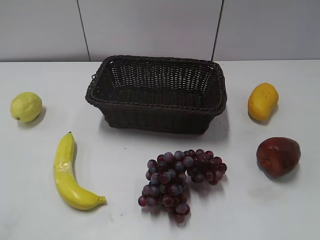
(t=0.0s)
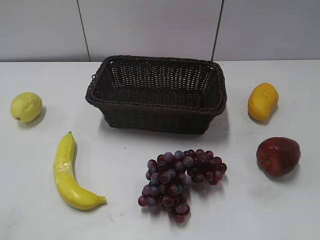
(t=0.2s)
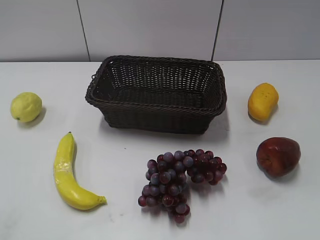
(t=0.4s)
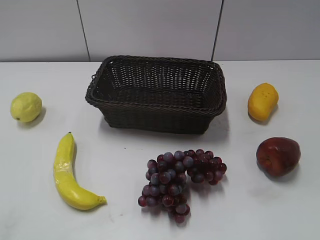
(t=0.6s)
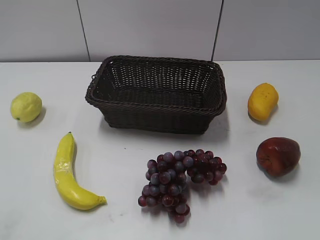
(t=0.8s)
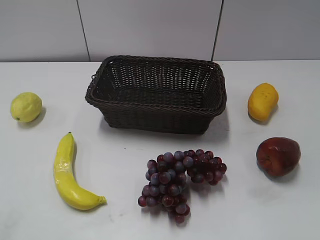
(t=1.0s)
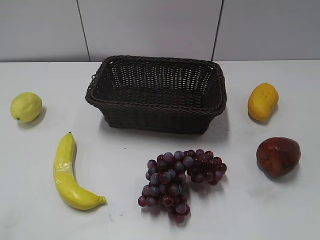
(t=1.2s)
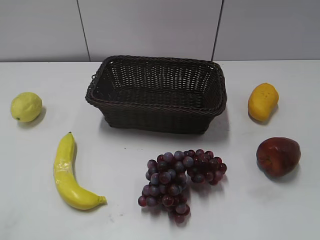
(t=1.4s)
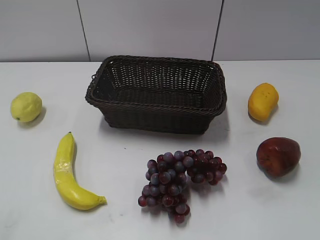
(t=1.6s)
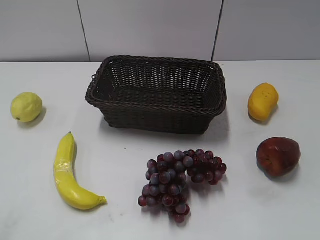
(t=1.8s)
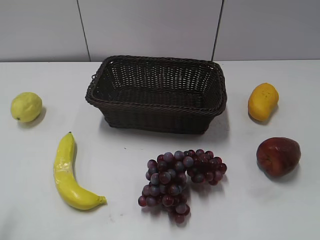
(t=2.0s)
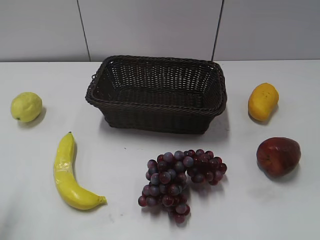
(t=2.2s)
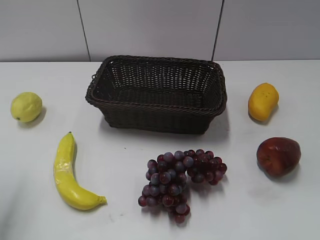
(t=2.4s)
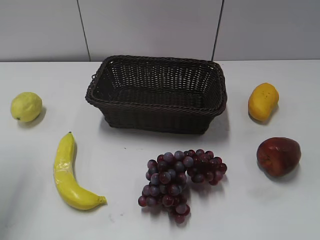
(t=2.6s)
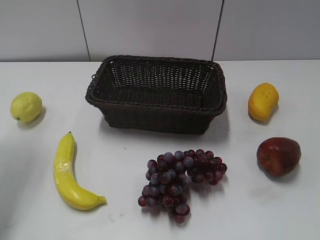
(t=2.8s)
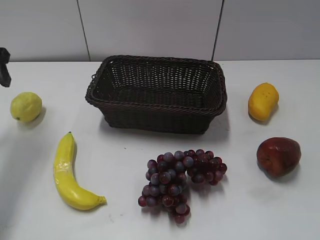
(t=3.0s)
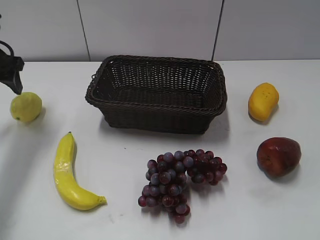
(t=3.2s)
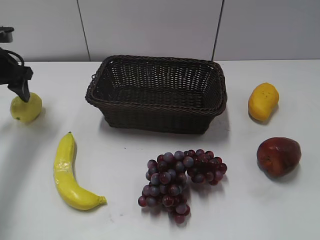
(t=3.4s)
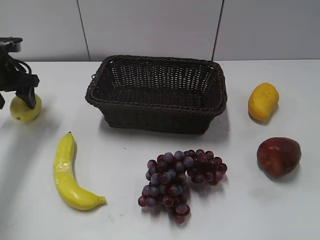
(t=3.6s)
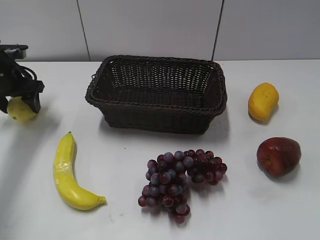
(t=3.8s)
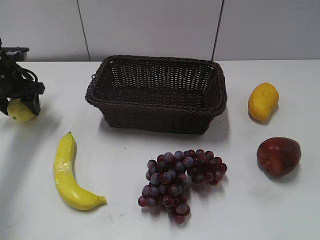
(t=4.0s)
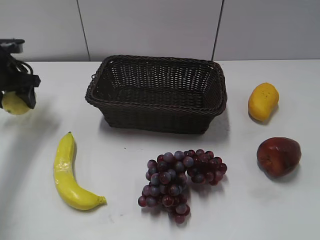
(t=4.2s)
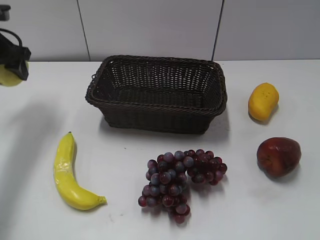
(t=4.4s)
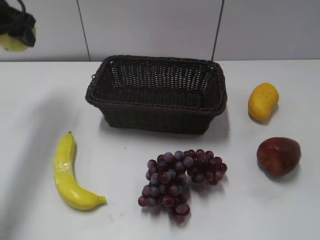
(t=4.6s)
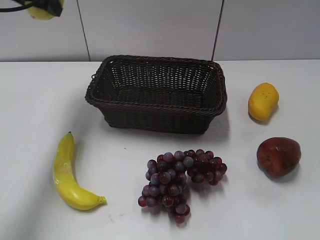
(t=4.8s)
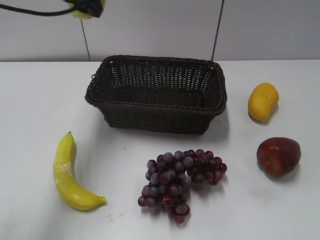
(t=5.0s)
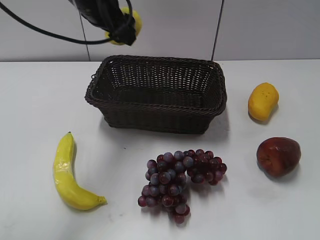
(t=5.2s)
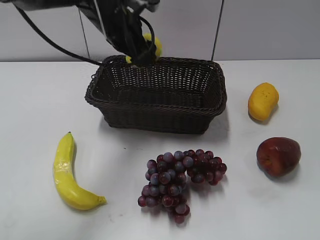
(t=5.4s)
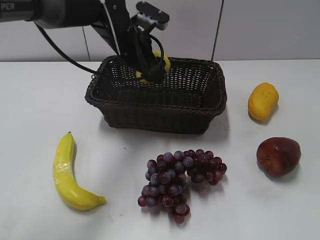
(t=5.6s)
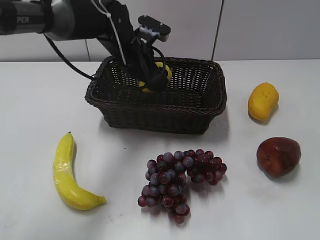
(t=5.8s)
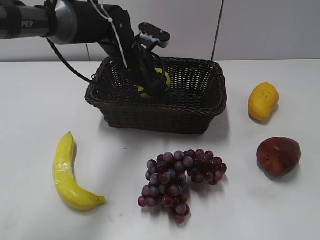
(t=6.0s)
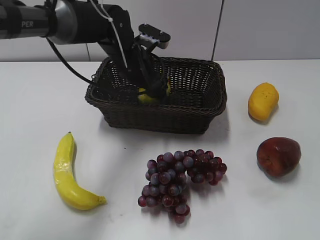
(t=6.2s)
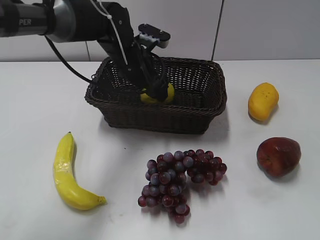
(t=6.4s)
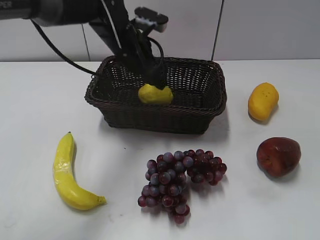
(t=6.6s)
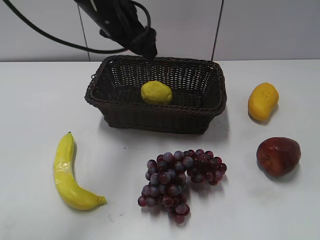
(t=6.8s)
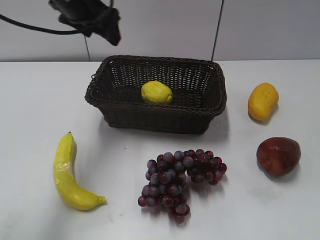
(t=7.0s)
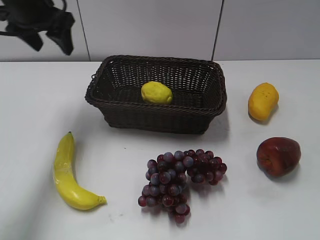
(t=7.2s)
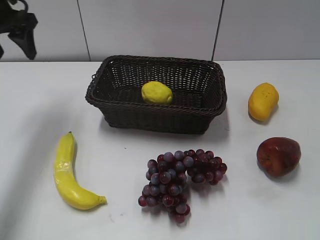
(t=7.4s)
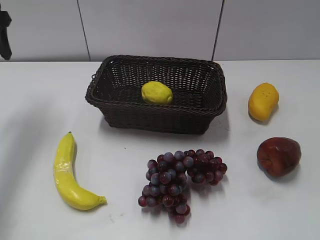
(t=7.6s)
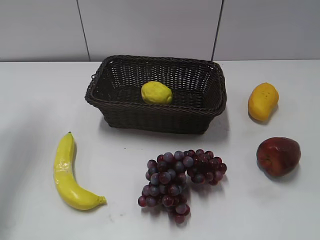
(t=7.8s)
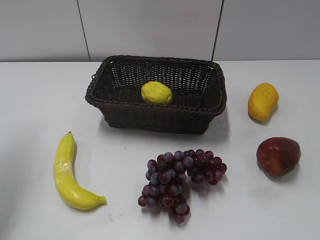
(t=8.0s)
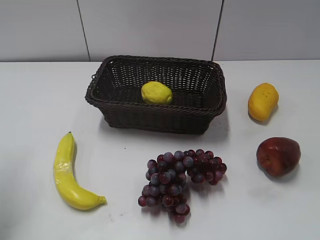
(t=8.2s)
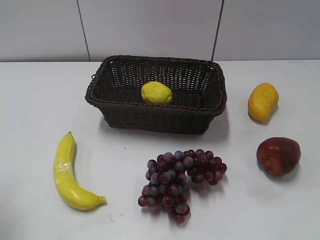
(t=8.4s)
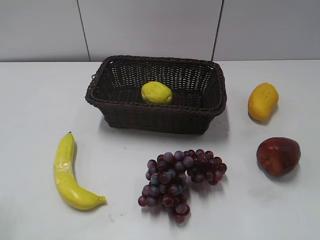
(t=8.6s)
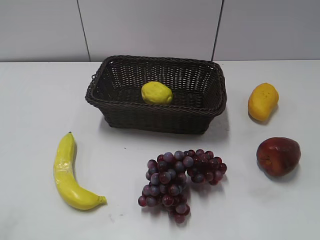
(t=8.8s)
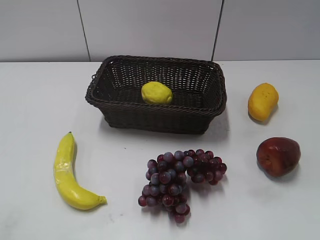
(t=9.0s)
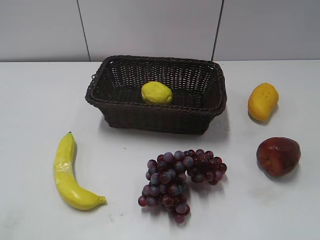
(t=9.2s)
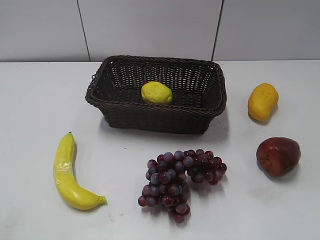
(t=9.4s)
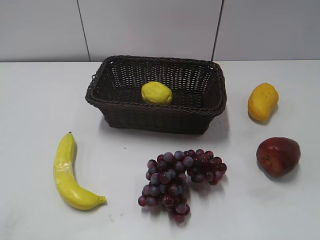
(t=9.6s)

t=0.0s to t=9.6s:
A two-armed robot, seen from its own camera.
Step, t=3.0s to t=4.0s: Grasp the lemon with left gripper.
Step, t=4.4s to t=6.4s: Place the lemon in the basket with left gripper.
t=1.6s to t=3.2s: The left gripper travels forward by about 40 cm, and opens its fingers.
t=3.2s to t=4.8s: The left gripper shifts approximately 15 cm upward and to the right.
t=4.8s to t=6.4s: The left gripper moves to the right and downward, some 25 cm, and opens up.
t=6.4s to t=8.0s: The left gripper shifts about 35 cm to the left, upward and backward, and closes its fingers.
t=8.0s to t=9.6s: The left gripper heads backward, covering some 30 cm.

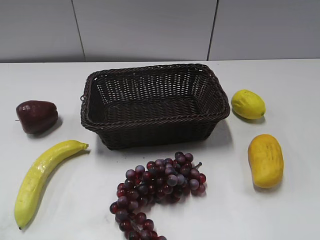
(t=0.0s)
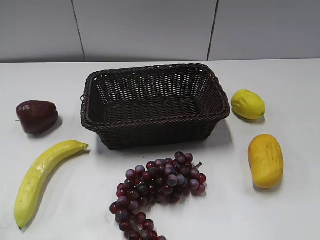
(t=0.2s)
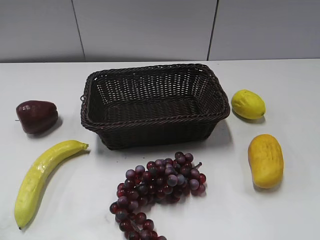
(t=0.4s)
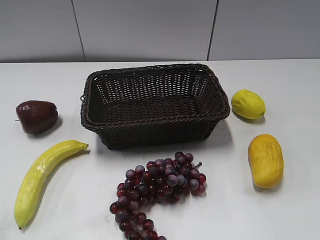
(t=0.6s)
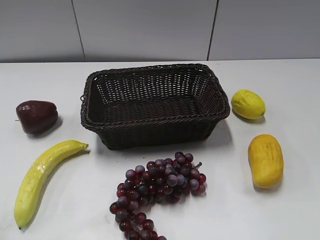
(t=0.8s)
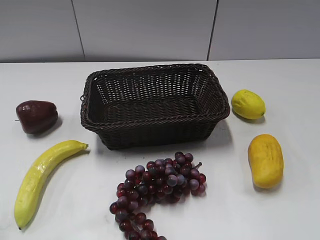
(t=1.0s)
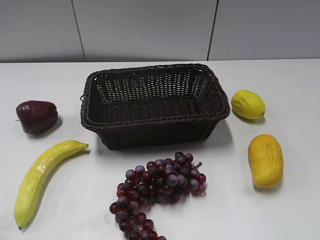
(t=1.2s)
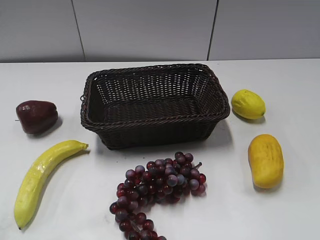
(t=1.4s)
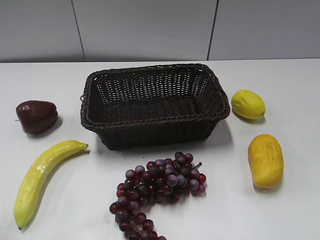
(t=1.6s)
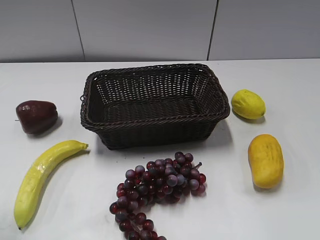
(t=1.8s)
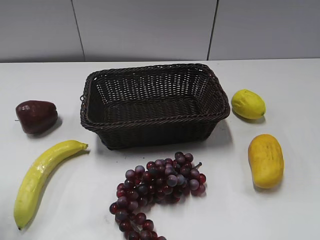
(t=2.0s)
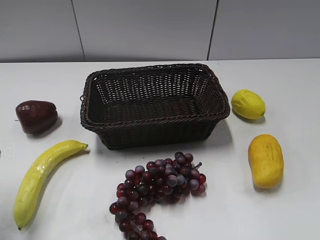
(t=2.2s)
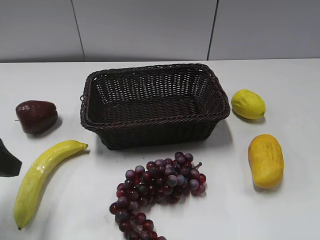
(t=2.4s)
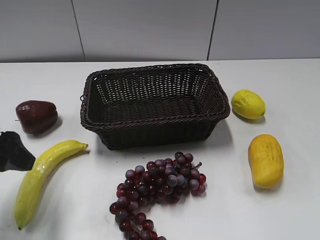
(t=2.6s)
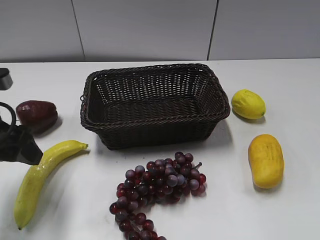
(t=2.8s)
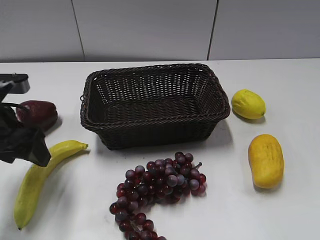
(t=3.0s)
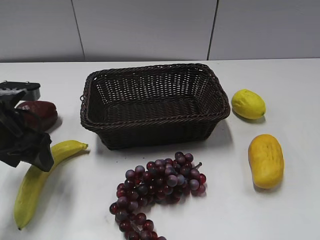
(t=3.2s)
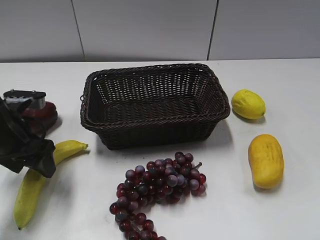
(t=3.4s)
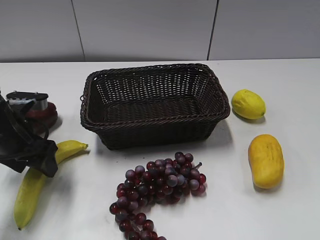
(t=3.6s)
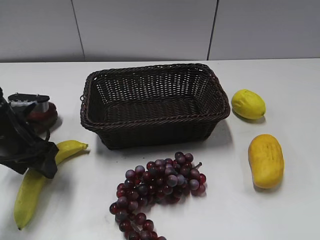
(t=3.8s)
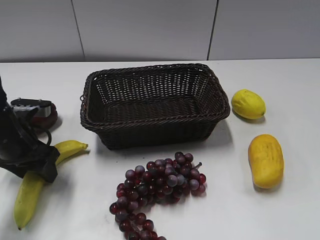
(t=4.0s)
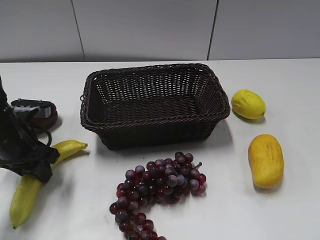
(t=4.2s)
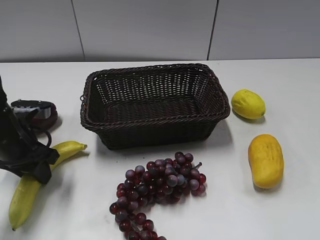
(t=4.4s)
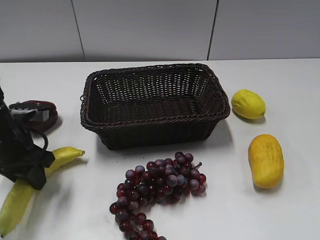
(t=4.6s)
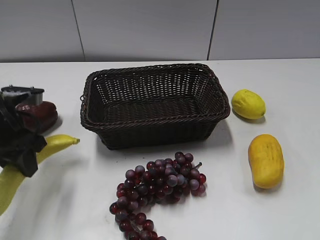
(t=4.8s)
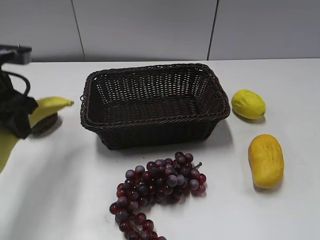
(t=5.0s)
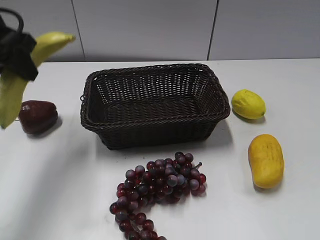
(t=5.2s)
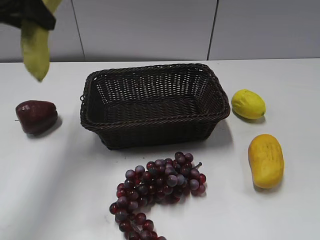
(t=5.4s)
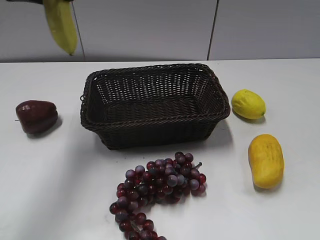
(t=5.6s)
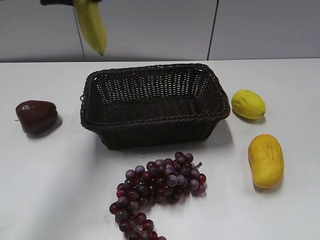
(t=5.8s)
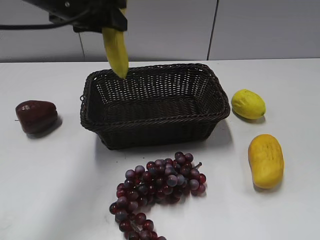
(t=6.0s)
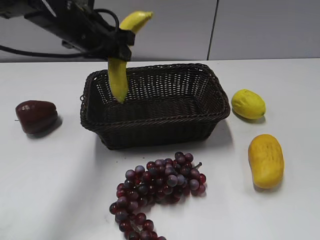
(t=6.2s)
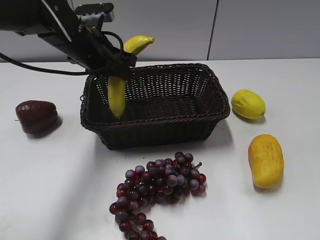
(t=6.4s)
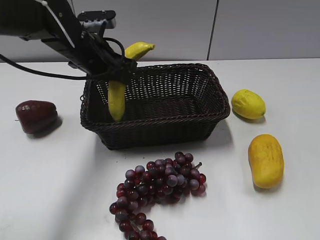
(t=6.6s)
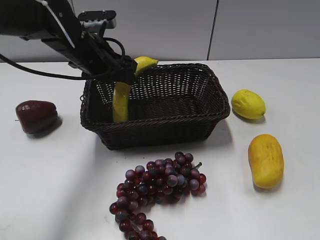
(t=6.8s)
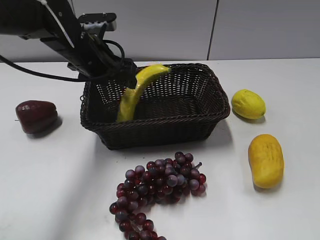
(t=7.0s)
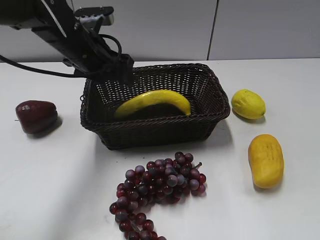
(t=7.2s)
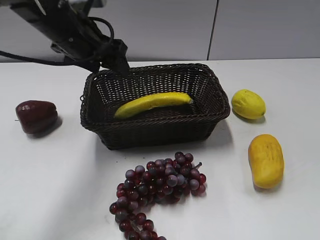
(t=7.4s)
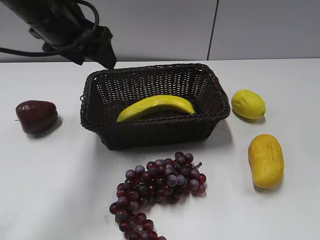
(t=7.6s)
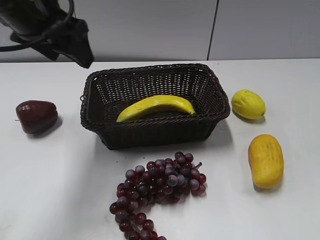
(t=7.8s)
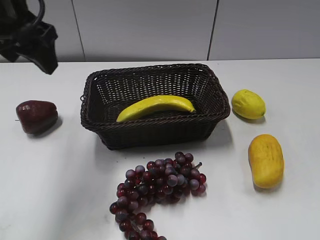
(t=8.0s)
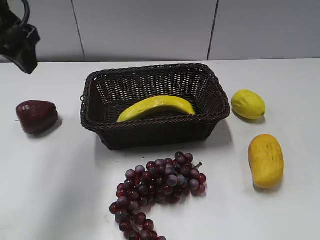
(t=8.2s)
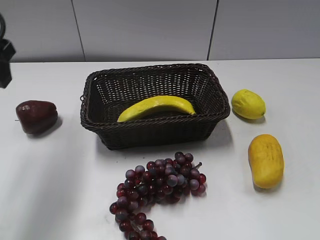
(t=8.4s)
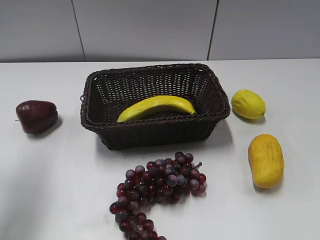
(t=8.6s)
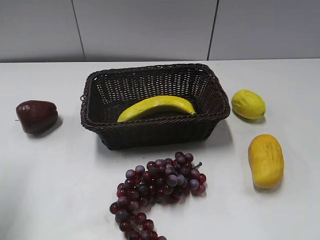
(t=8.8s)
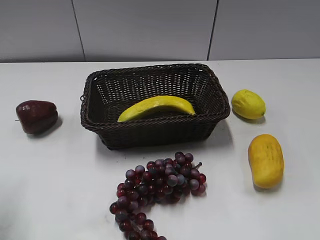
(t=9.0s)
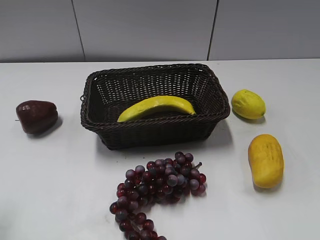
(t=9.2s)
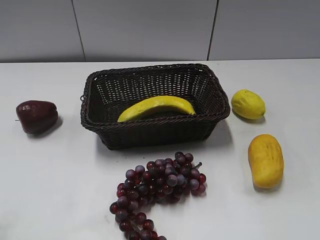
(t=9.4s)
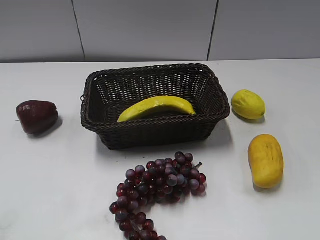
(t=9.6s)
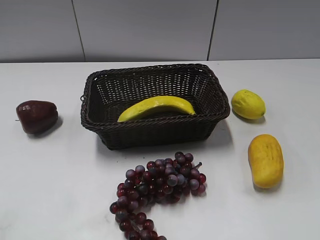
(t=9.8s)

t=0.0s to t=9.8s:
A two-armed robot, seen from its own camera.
Step, t=2.0s to t=4.4s: Grasp the banana with left gripper.
Step, t=4.6s to t=7.4s: Place the banana in the basket with left gripper.
t=1.4s to t=2.8s: The left gripper goes roughly 25 cm forward and downward.
t=2.8s to t=4.2s: The left gripper goes approximately 10 cm downward and forward, and closes its fingers.
t=4.2s to t=5.6s: The left gripper goes approximately 25 cm upward.
t=5.6s to t=7.0s: The left gripper shifts about 20 cm downward and to the right, and opens.
t=7.0s to t=8.4s: The left gripper heads upward, to the left and backward, covering roughly 20 cm.
t=8.4s to t=9.8s: The left gripper heads backward, covering some 25 cm.

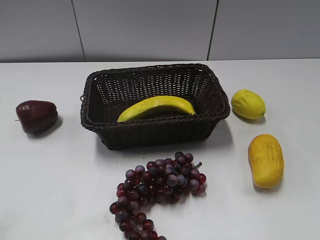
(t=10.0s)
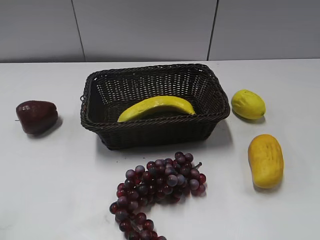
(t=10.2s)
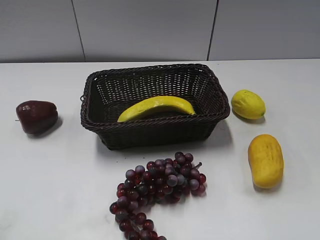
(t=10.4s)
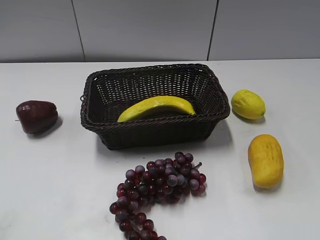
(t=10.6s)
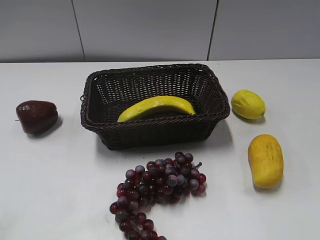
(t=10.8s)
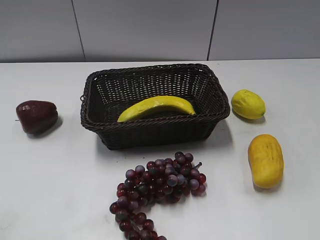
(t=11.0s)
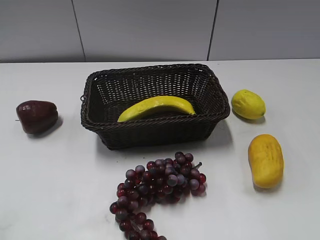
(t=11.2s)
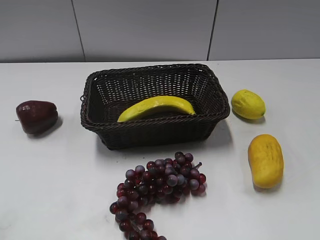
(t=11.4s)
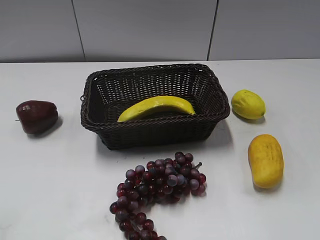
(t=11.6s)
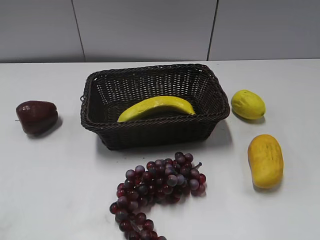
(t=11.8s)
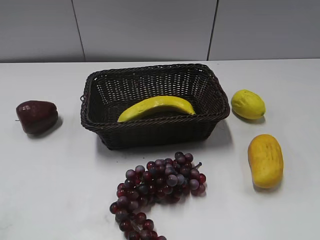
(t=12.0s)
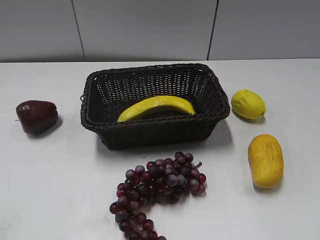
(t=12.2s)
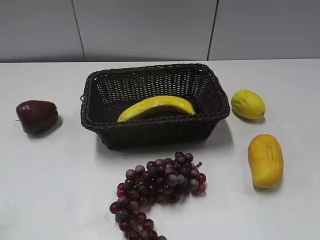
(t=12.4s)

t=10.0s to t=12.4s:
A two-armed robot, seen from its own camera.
t=10.0s to t=11.2s: The two grippers keep their place.
